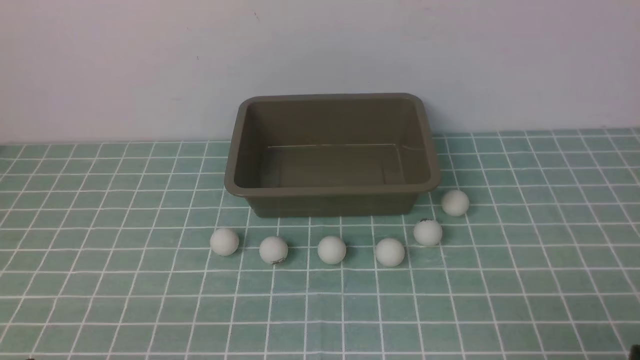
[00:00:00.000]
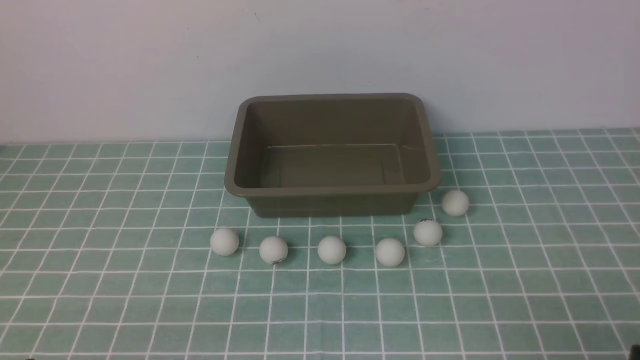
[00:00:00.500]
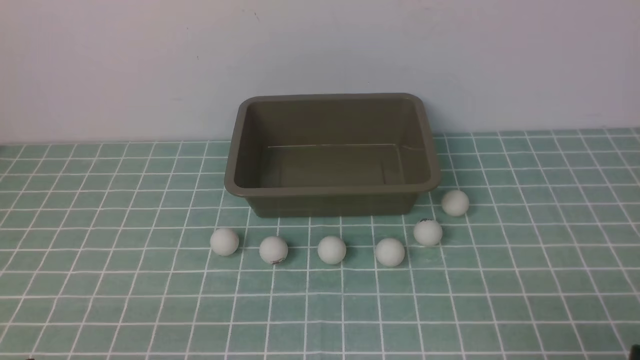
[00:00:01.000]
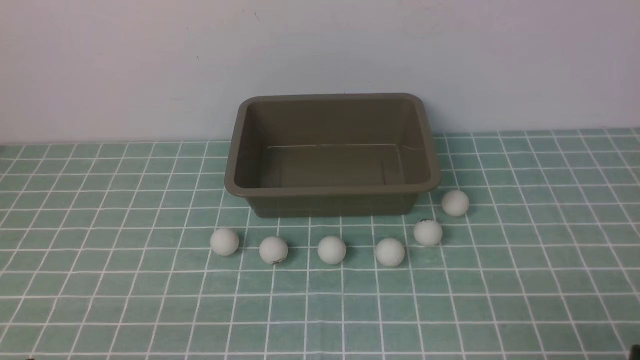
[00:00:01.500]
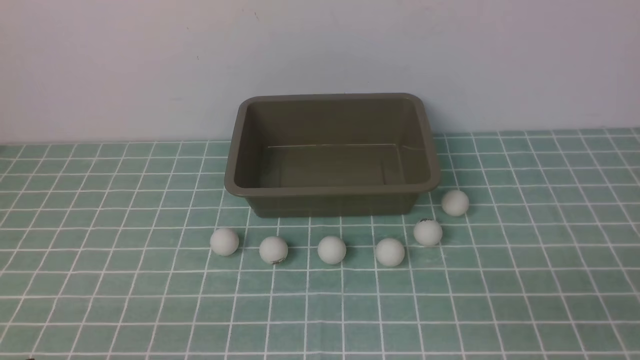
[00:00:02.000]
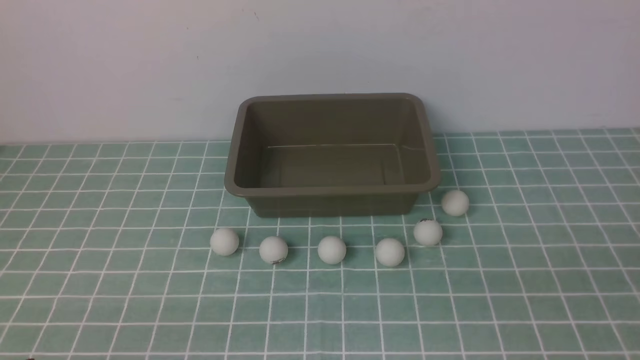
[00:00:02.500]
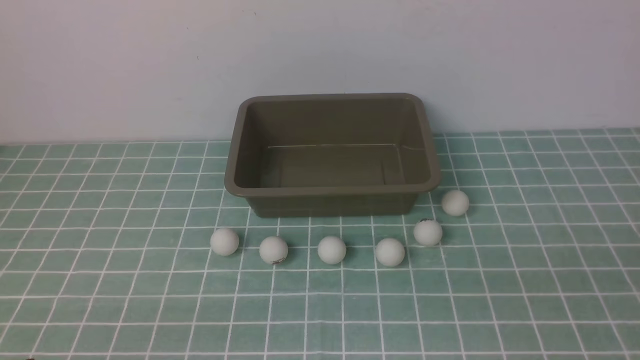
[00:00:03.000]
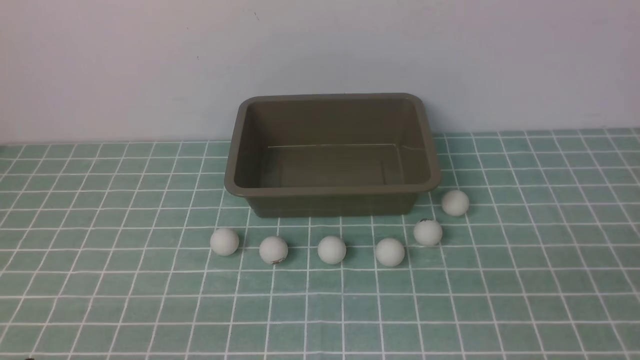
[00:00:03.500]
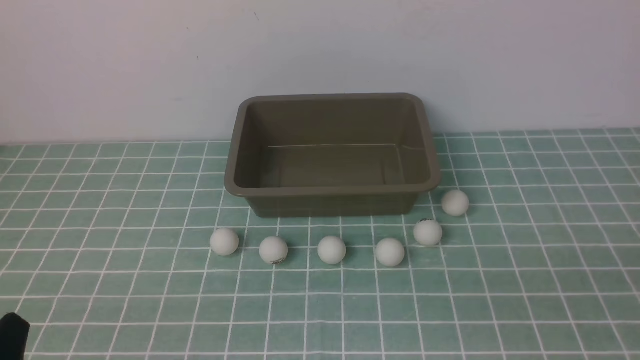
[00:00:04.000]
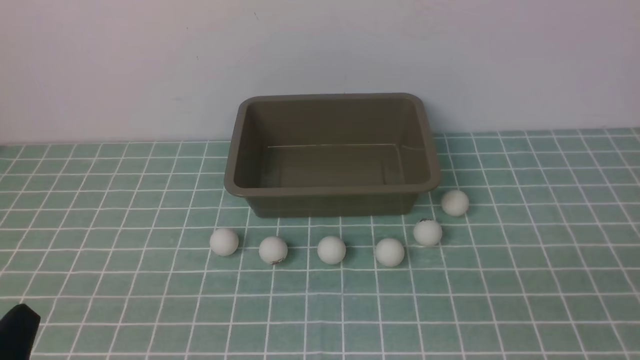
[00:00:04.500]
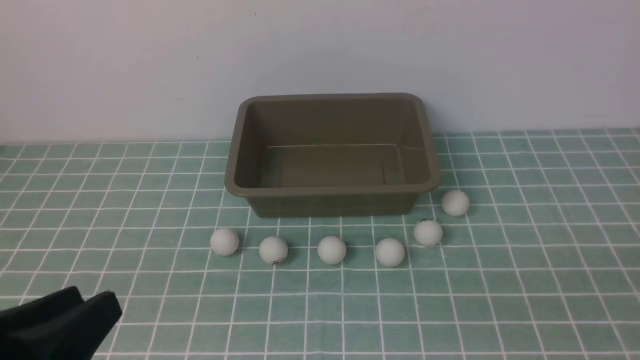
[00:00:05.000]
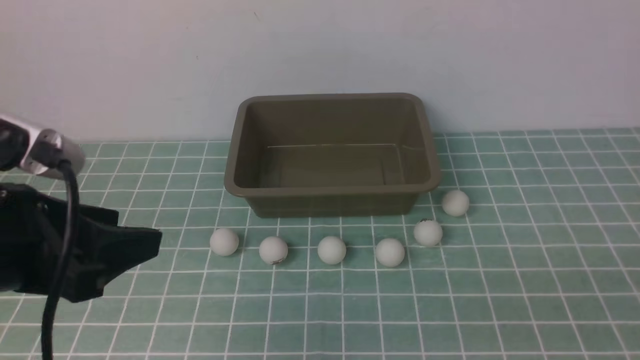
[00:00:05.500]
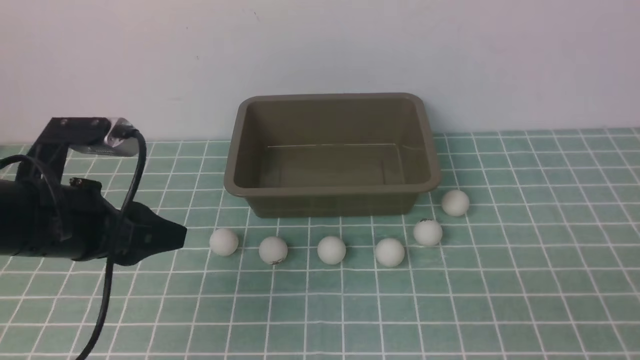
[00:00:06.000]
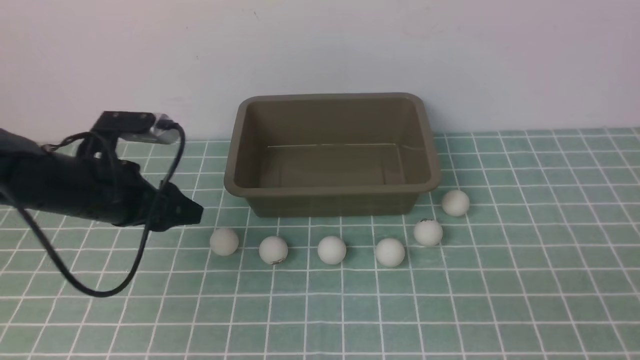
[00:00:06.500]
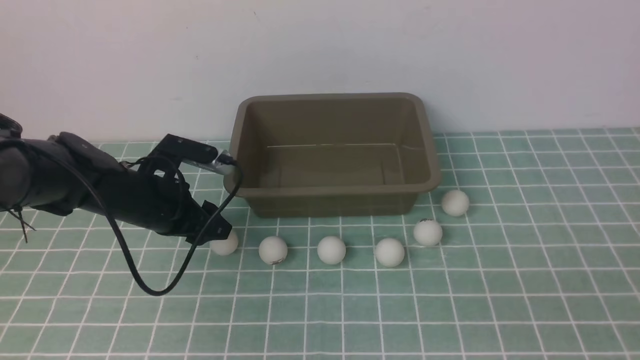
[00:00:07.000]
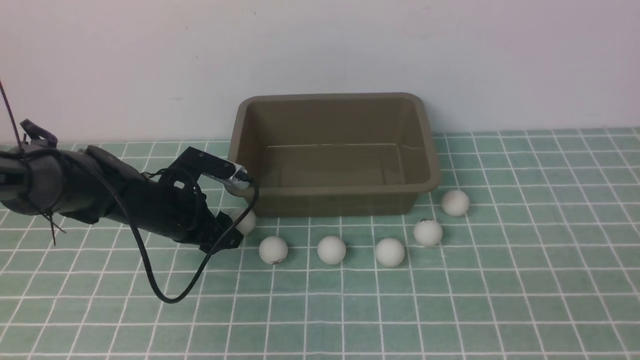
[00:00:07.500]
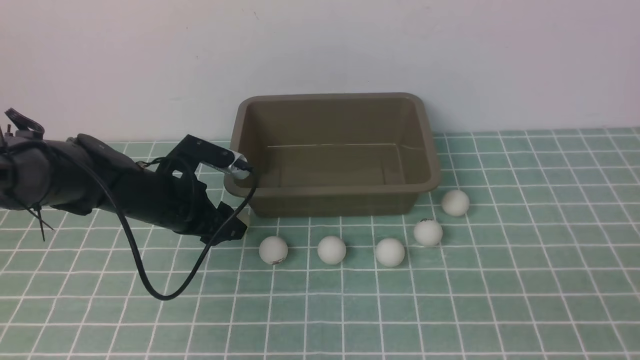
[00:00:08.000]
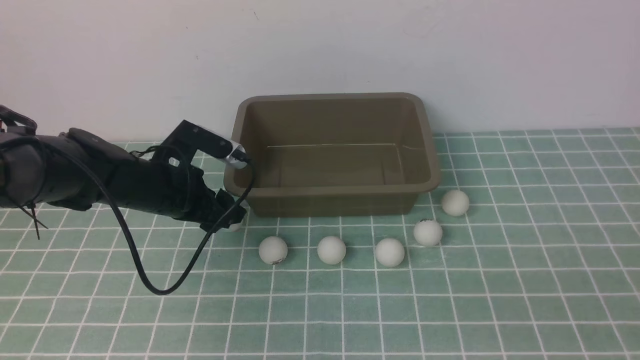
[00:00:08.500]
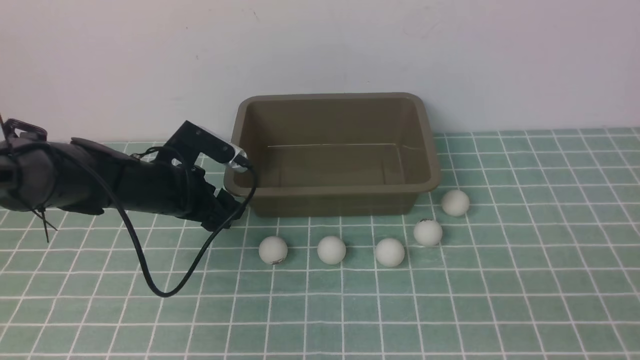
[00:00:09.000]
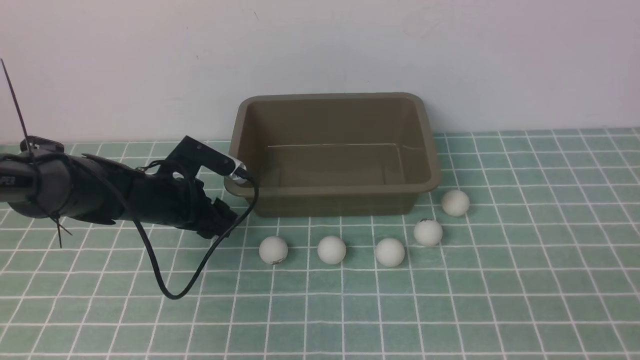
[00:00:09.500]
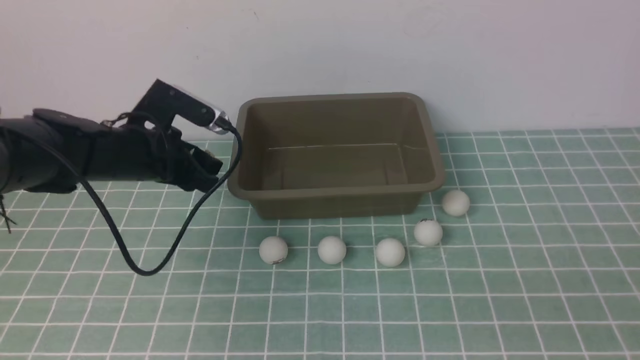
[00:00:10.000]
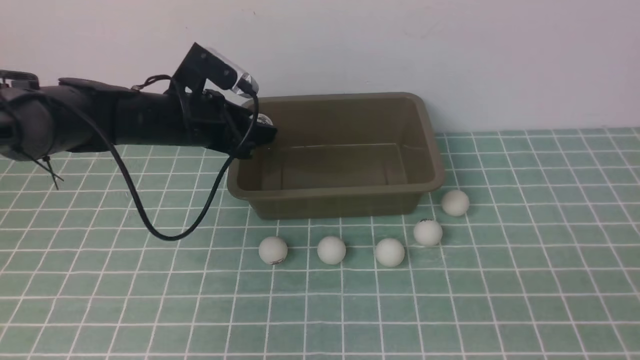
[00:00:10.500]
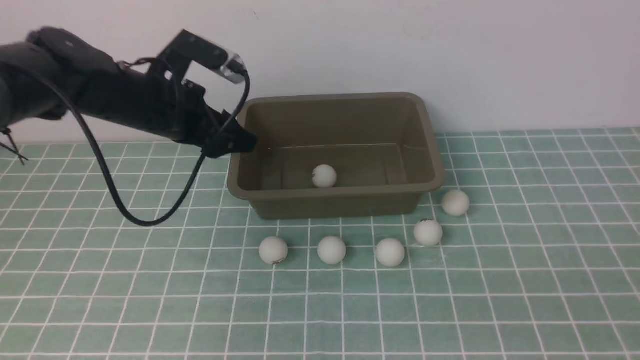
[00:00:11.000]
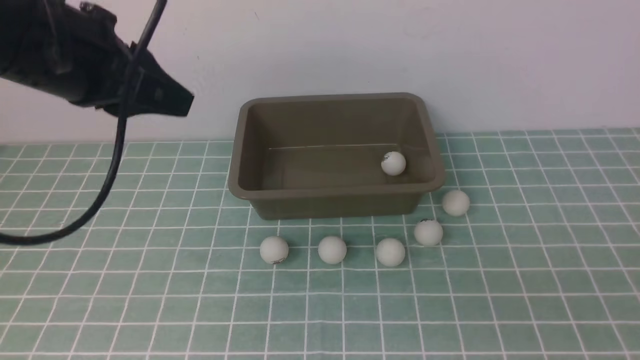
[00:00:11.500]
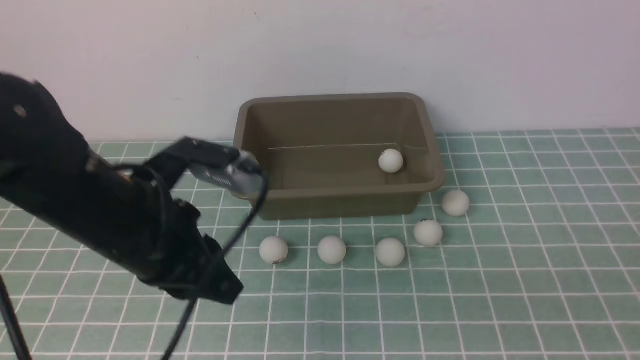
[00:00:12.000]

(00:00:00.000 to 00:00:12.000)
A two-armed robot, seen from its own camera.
Step, 00:00:00.000 - 00:00:09.500: use the left arm to clamp the table tennis ball closest to it.
Step, 00:00:10.000 - 00:00:10.500: use the left arm to put the table tennis ball into the box.
00:00:04.000 - 00:00:06.000: The left gripper is displaced forward by some 25 cm.
00:00:06.000 - 00:00:08.000: The left gripper moves forward and downward, approximately 10 cm.
00:00:08.000 - 00:00:10.000: The grippers move only a little.
00:00:10.000 - 00:00:12.000: The left gripper heads backward and upward, covering approximately 15 cm, and closes.

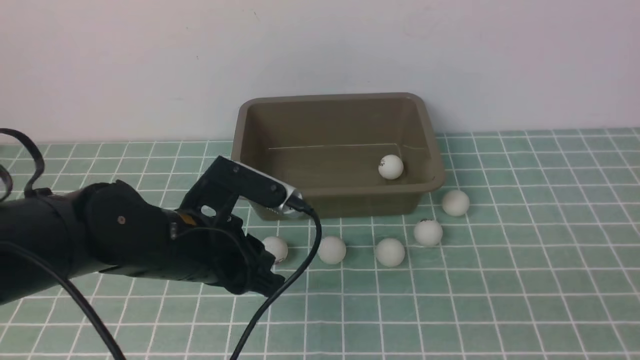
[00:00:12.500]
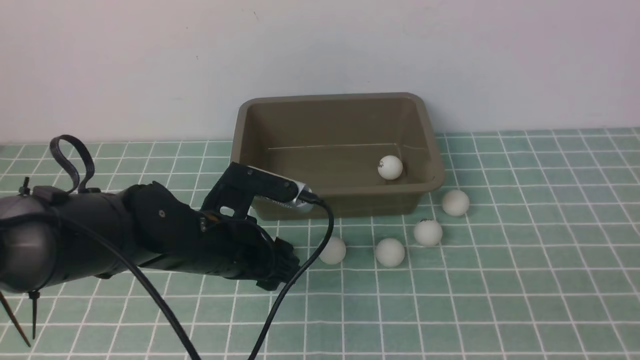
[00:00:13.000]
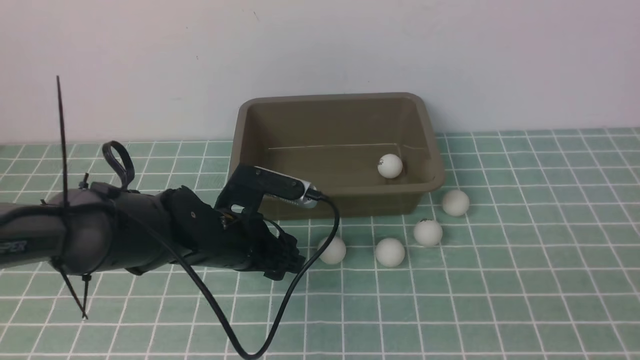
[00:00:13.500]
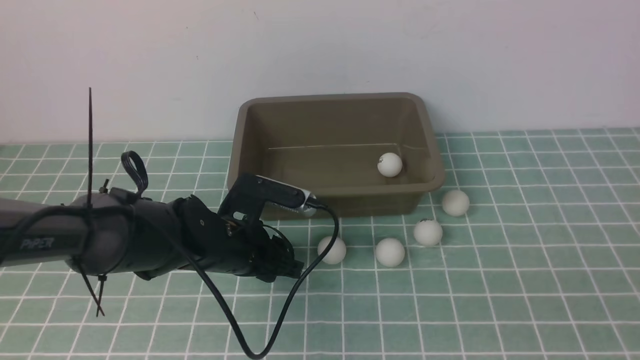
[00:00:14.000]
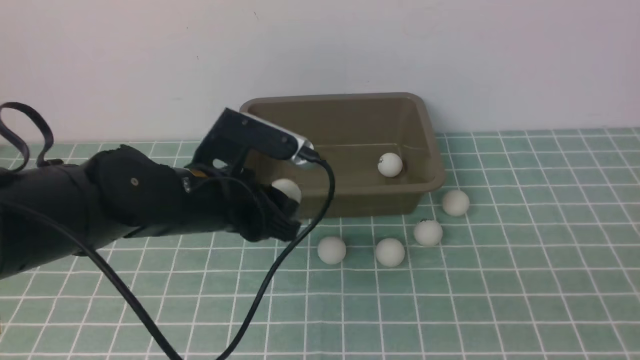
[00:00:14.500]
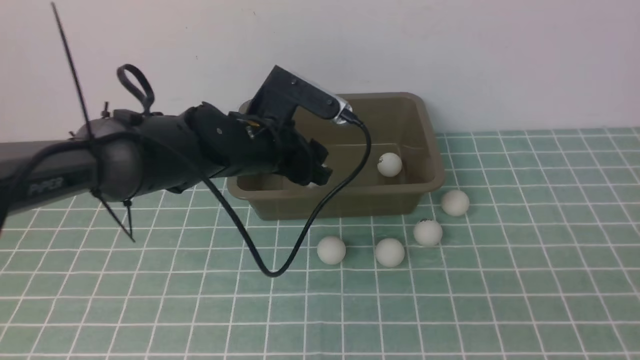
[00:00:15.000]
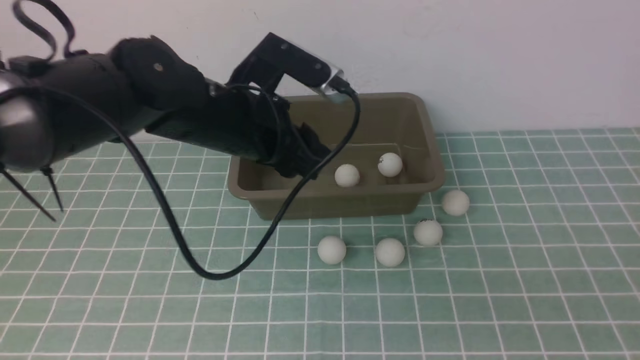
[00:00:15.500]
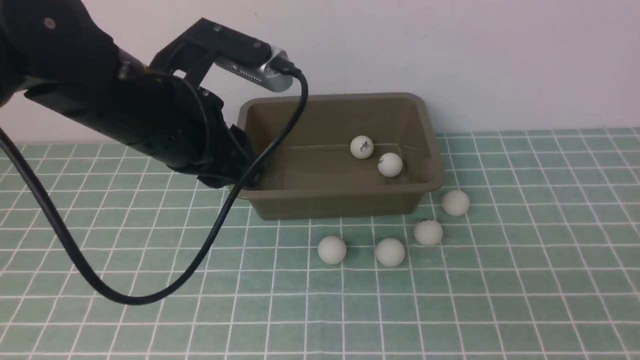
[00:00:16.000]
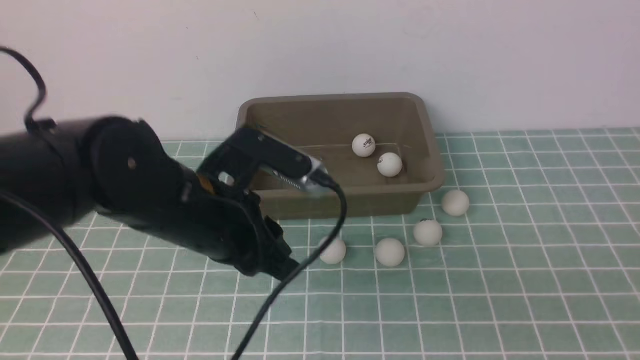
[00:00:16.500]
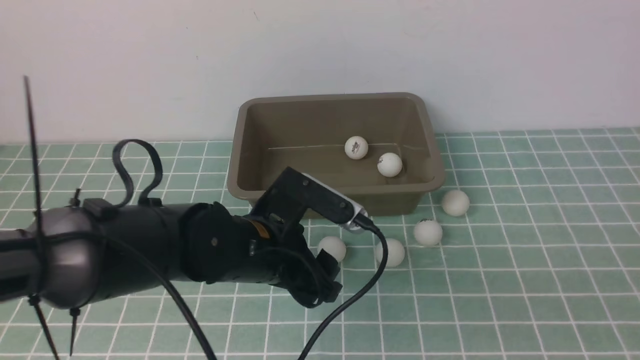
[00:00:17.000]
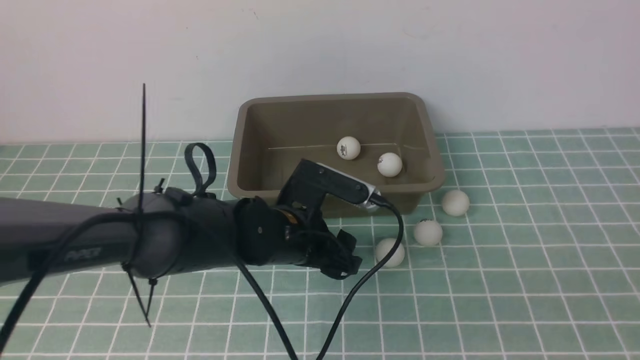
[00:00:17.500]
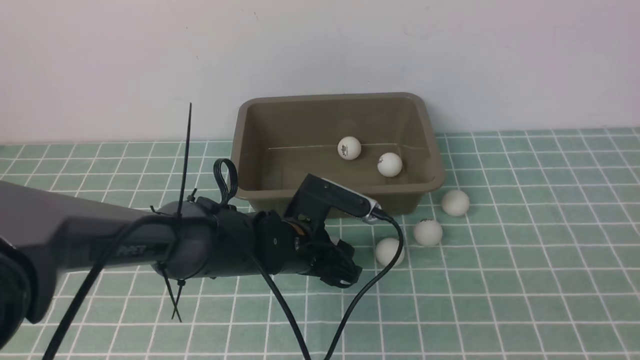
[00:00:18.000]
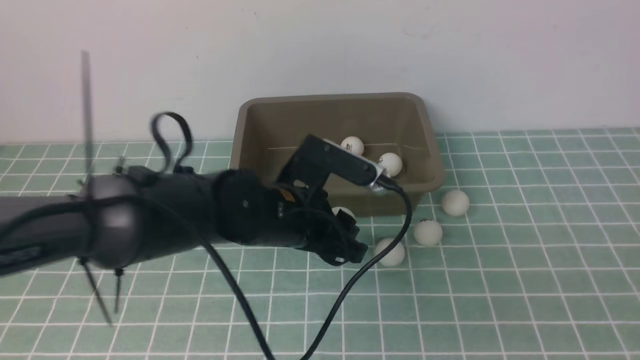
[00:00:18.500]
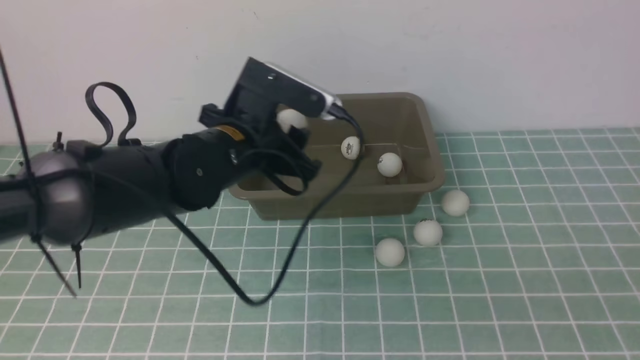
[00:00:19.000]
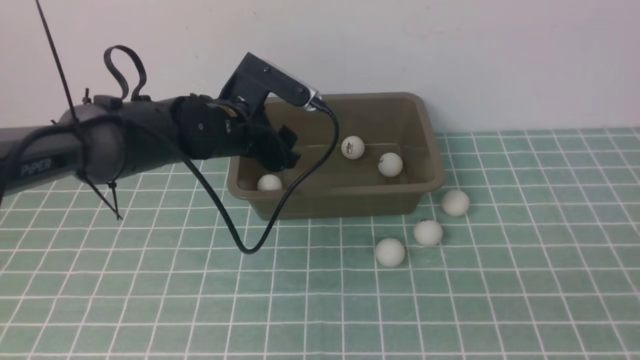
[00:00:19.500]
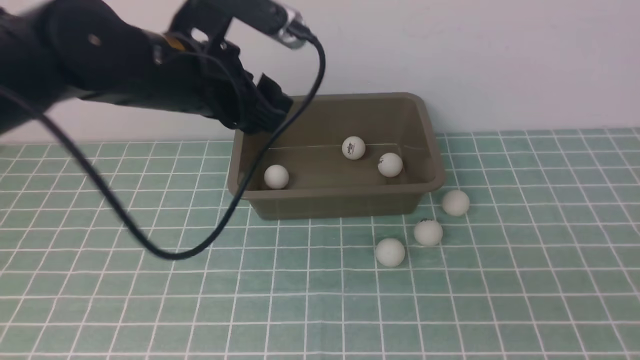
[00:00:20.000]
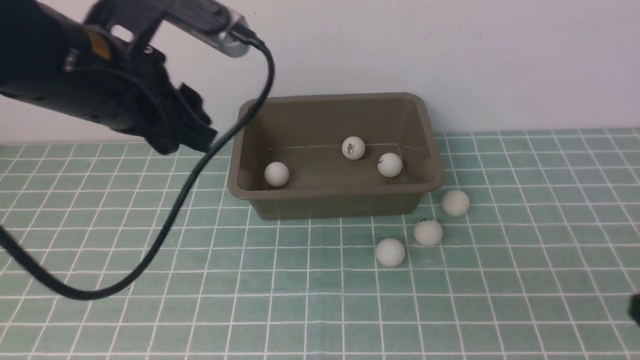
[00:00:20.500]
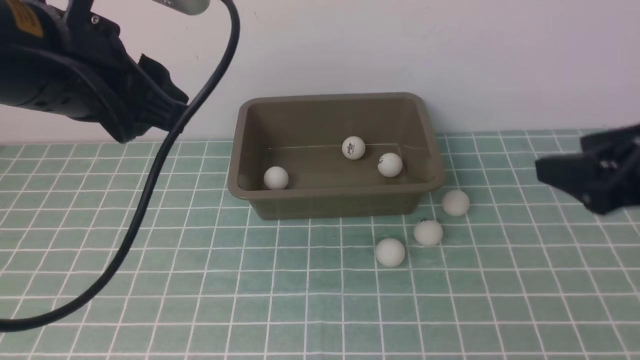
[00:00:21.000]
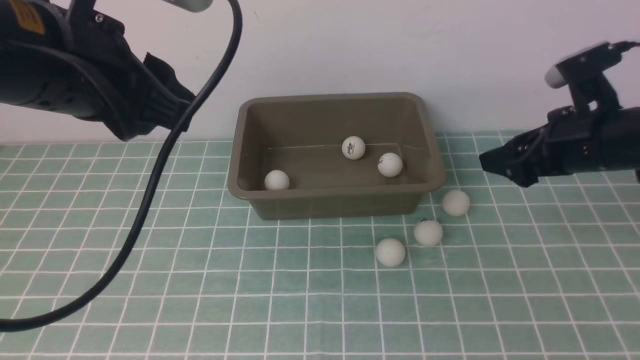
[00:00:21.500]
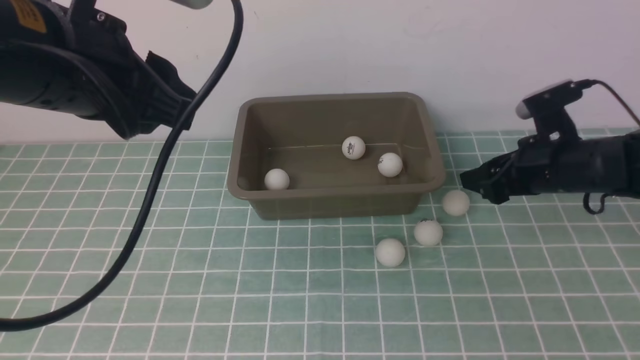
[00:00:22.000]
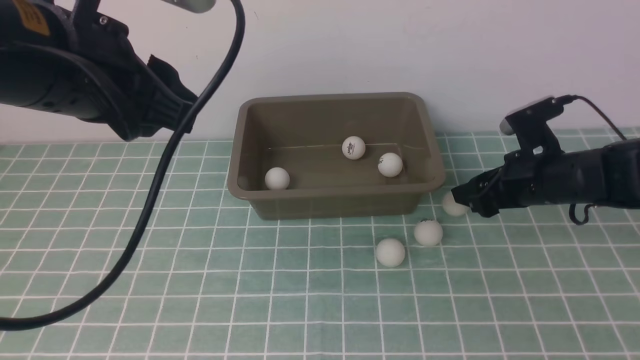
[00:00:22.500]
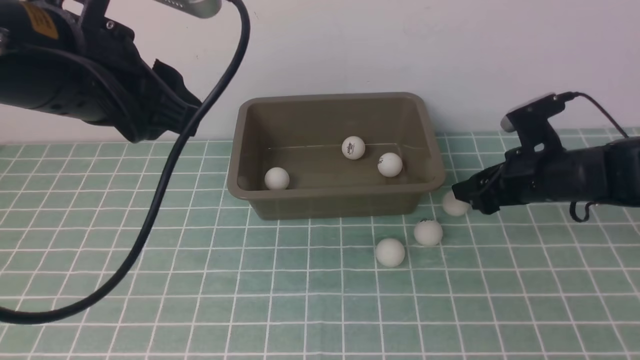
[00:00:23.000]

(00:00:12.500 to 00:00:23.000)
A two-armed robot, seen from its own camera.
Step, 00:00:14.500 - 00:00:15.000: use the left arm to put the table tennis ball into the box.
Step, 00:00:15.500 - 00:00:18.000: use the left arm to clamp the table tennis ball closest to it.
Step, 00:00:18.500 - 00:00:19.000: use the left arm to put the table tennis ball into the box.
00:00:12.500 - 00:00:14.500: The left gripper moves approximately 5 cm downward and comes back, and opens.
00:00:14.500 - 00:00:16.500: The left gripper opens, then closes again.
00:00:16.500 - 00:00:19.000: The left gripper is displaced forward by approximately 10 cm, and opens.
00:00:19.000 - 00:00:21.000: The right gripper heads forward, covering roughly 30 cm. Meanwhile the left gripper is displaced upward and backward by approximately 20 cm, and closes.
00:00:21.000 - 00:00:23.000: The right gripper moves about 10 cm downward and comes back.
